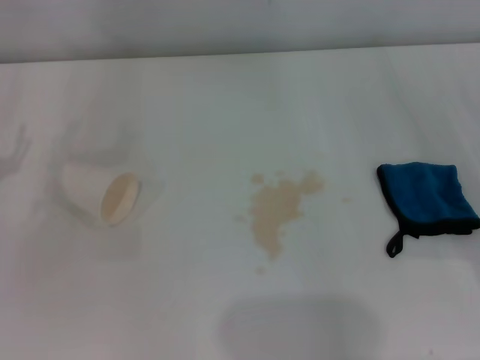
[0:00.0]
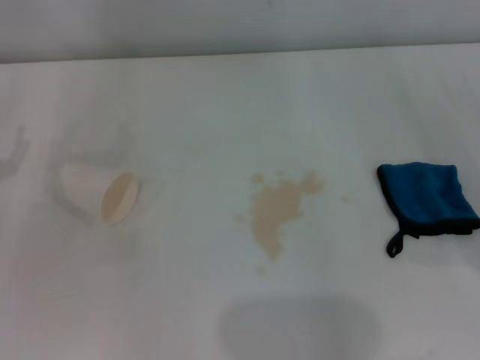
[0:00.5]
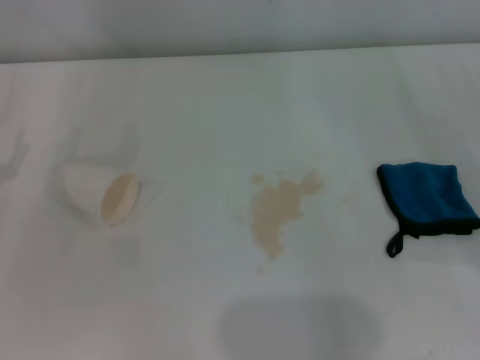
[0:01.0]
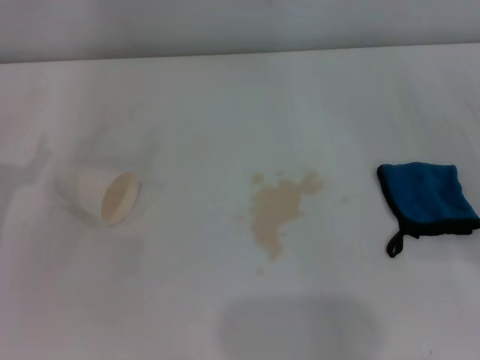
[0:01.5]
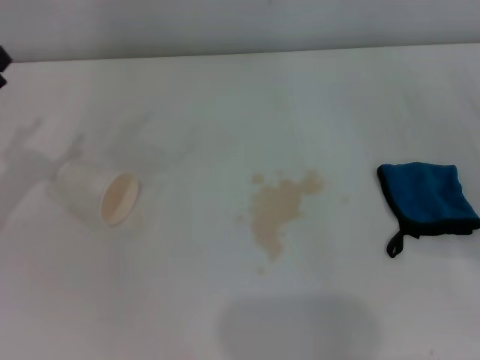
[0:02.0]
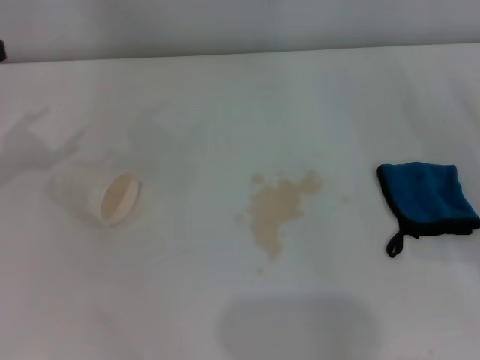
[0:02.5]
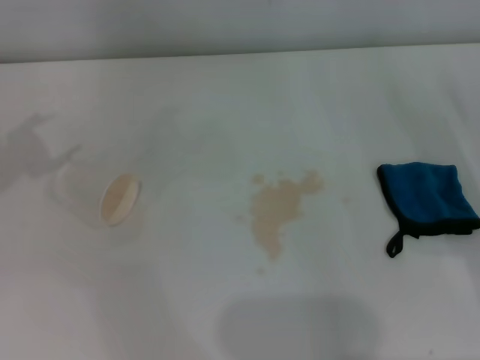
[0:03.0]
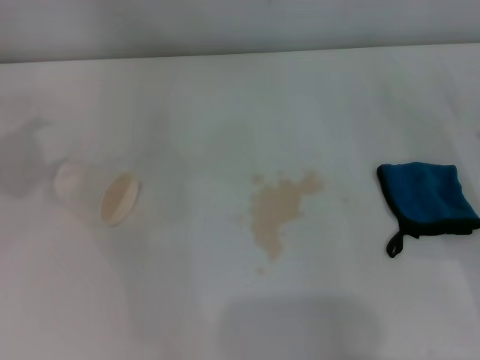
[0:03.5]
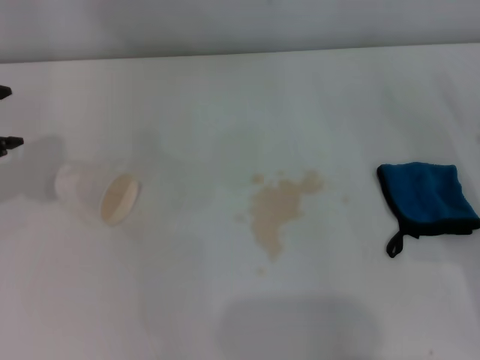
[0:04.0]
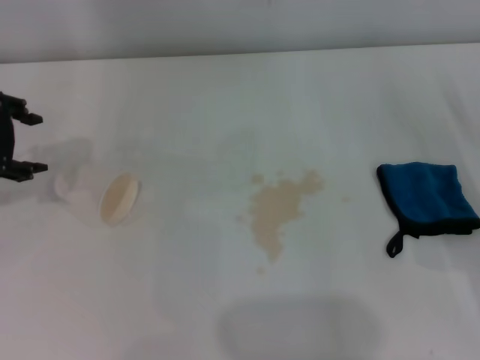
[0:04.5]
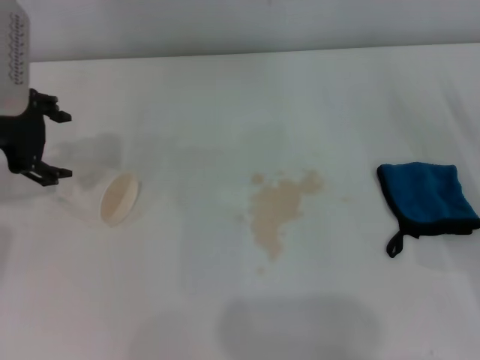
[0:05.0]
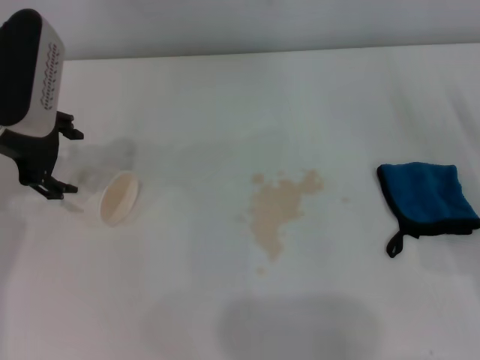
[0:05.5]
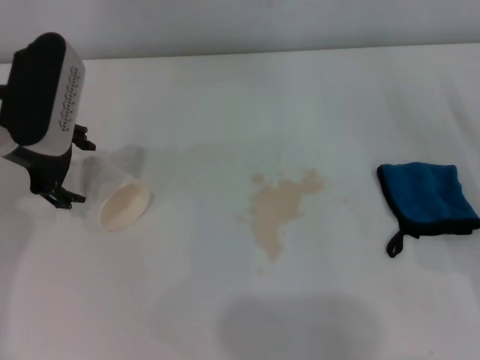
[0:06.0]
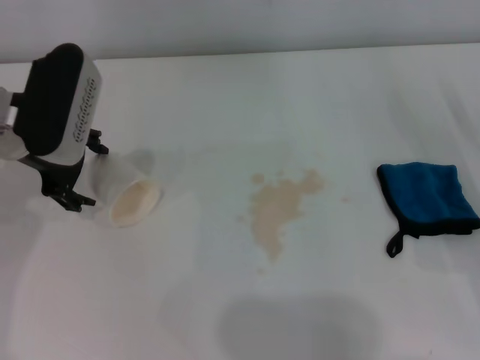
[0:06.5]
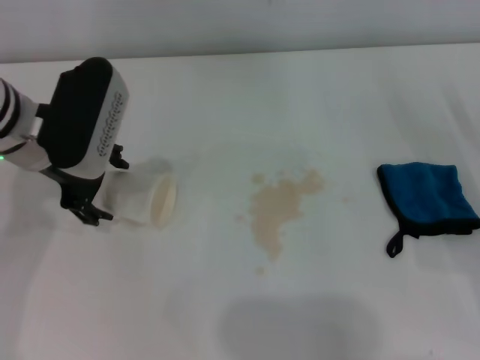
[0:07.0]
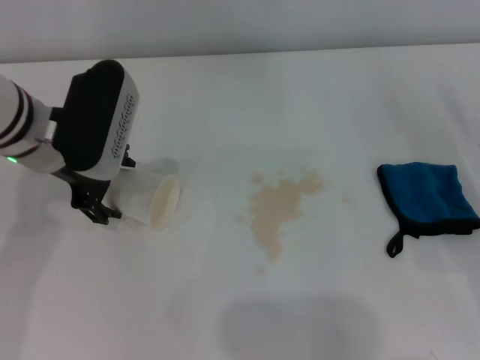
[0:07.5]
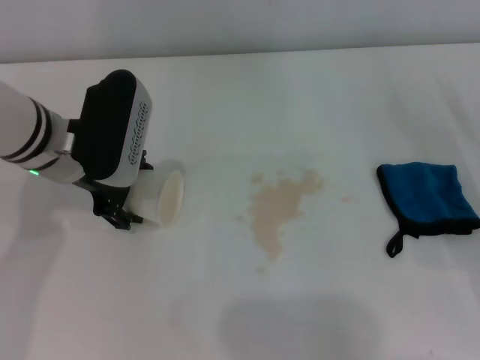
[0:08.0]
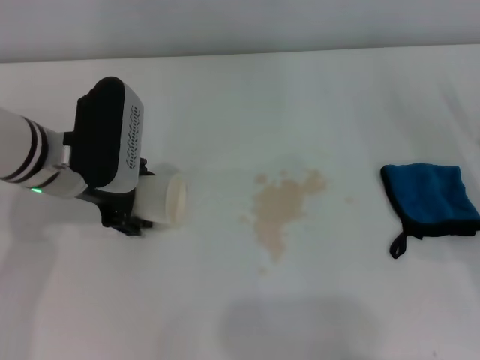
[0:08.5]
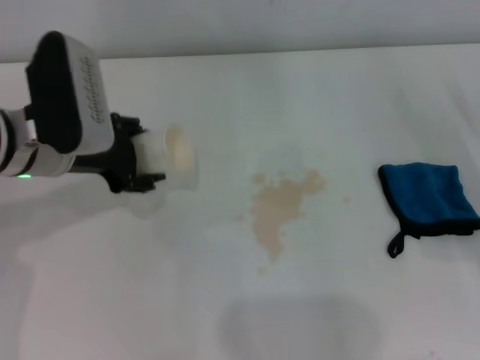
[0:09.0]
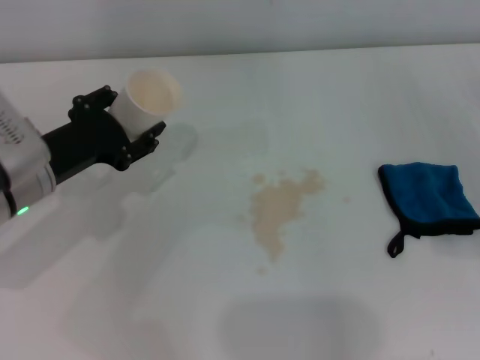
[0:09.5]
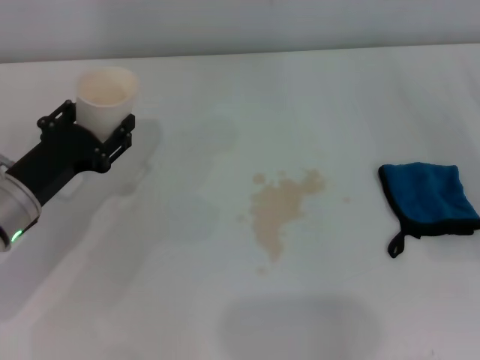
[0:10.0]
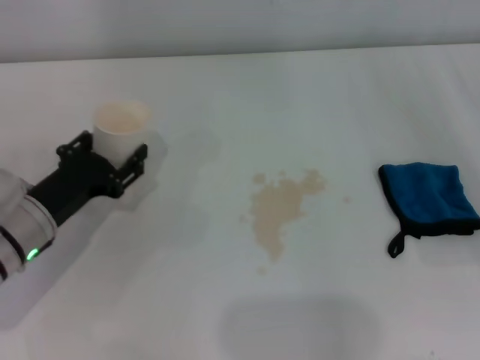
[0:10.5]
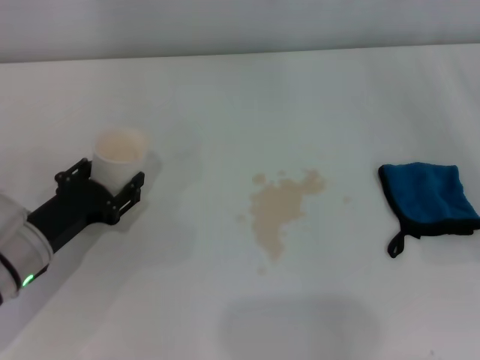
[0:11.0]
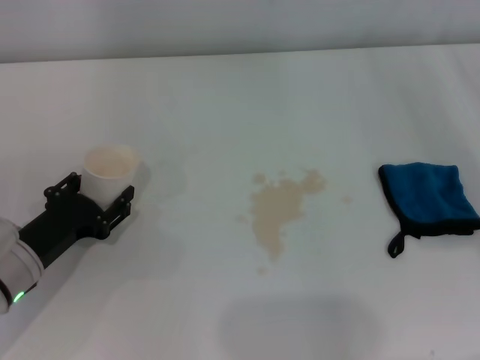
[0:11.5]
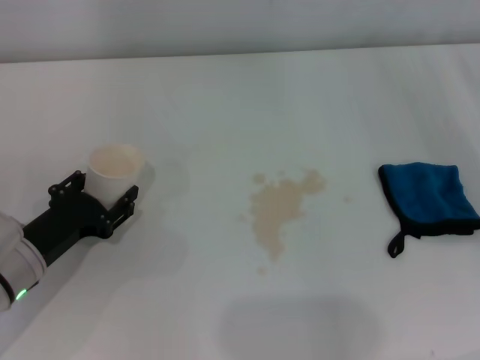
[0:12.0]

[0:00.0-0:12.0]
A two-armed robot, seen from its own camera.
Step, 0:00.0 to 0:08.0: Grasp the paper cup with the left gripper.
0:04.0 to 0:06.0: The left gripper heads to the right and downward, covering roughly 10 cm, and closes, then opens again.
0:06.0 to 0:08.0: The left gripper travels to the right by approximately 5 cm.
0:08.0 to 0:10.0: The left gripper moves downward, backward and to the left, roughly 10 cm, and closes.
0:10.0 to 0:12.0: The left gripper ends up roughly 5 cm from where it was.

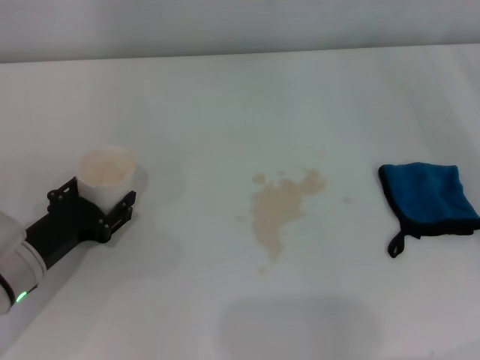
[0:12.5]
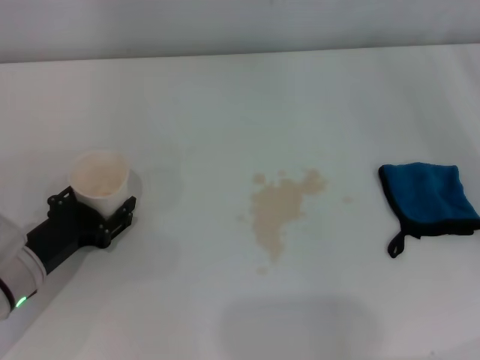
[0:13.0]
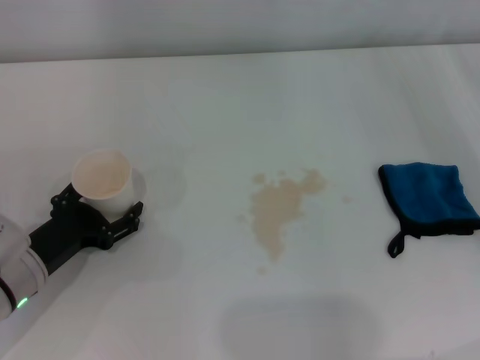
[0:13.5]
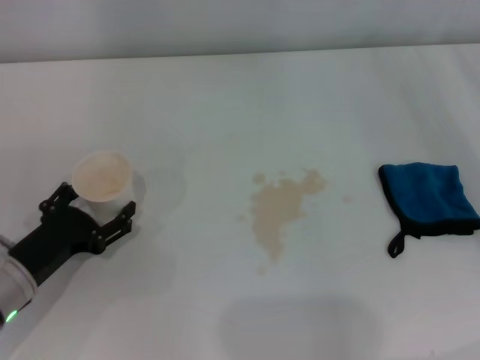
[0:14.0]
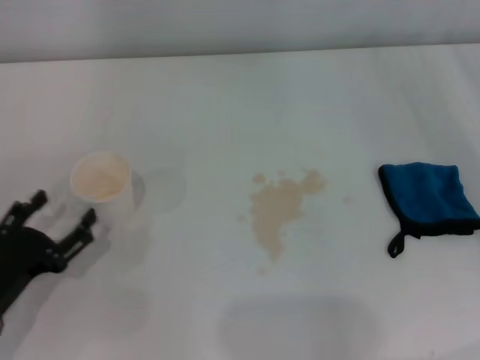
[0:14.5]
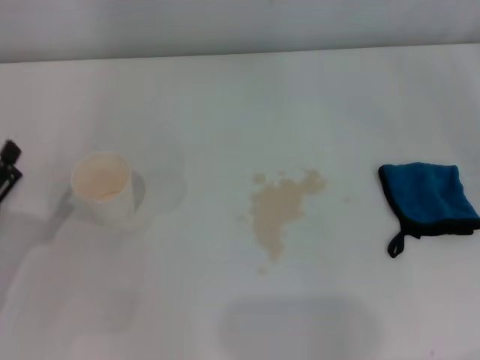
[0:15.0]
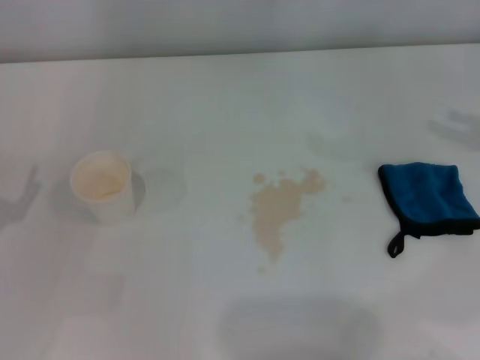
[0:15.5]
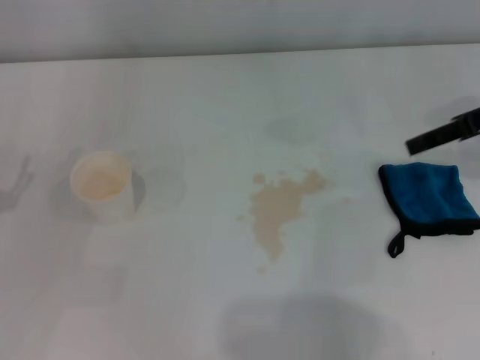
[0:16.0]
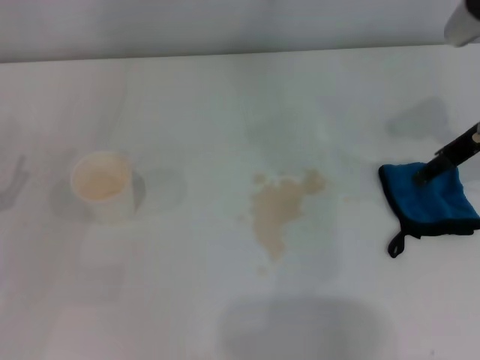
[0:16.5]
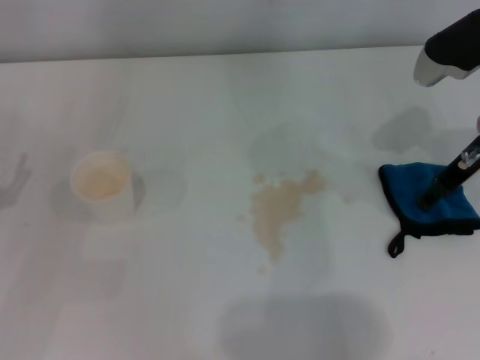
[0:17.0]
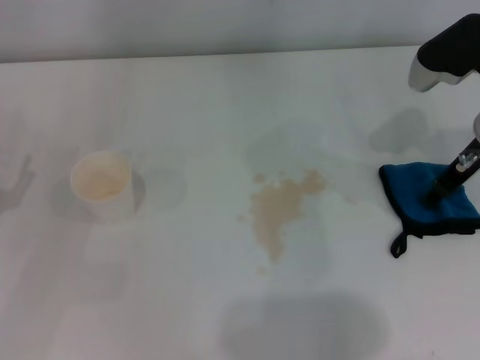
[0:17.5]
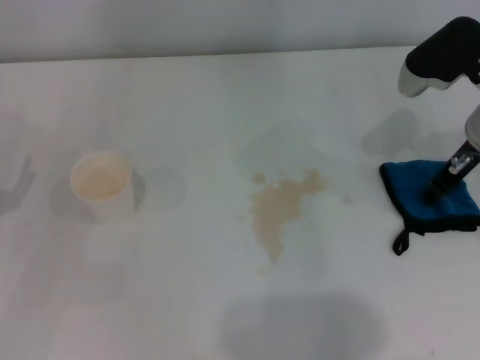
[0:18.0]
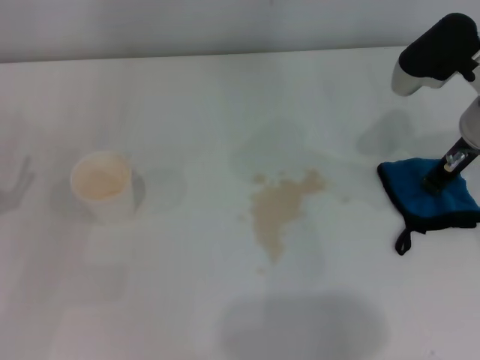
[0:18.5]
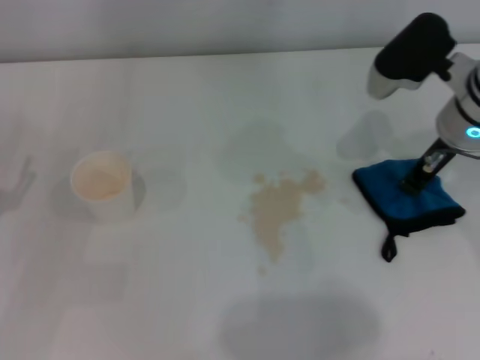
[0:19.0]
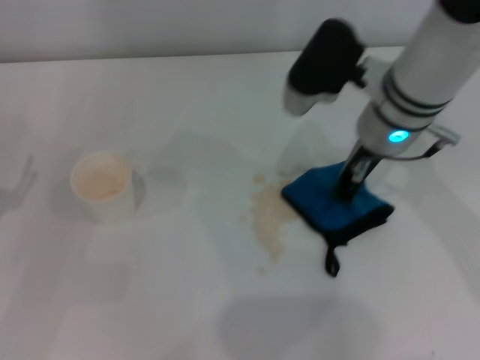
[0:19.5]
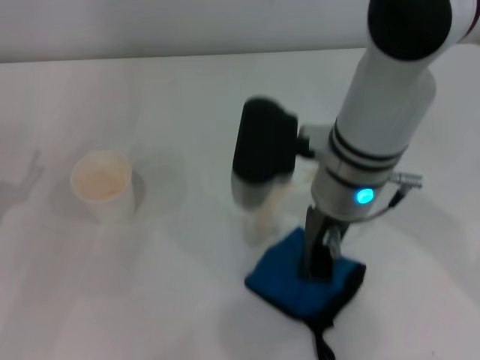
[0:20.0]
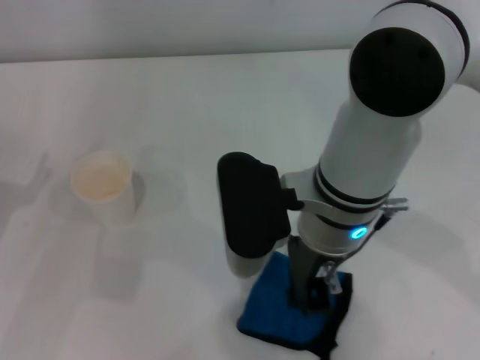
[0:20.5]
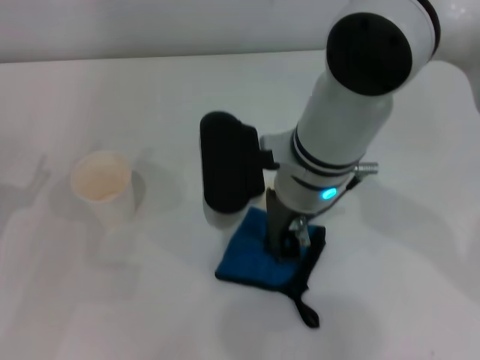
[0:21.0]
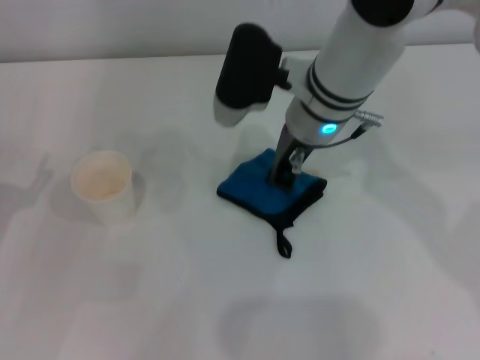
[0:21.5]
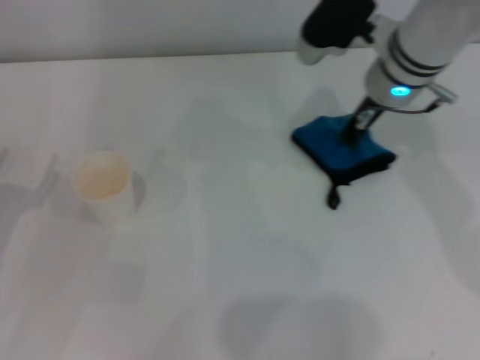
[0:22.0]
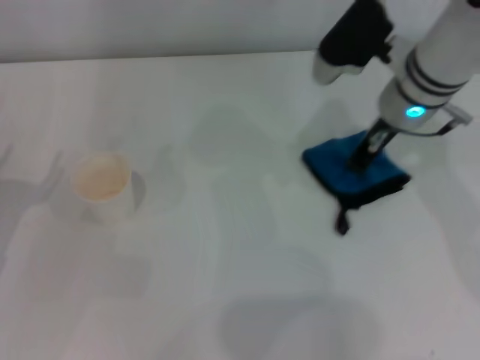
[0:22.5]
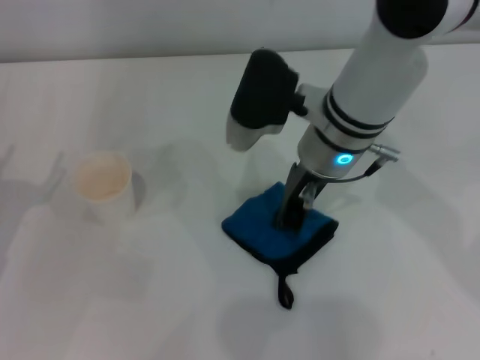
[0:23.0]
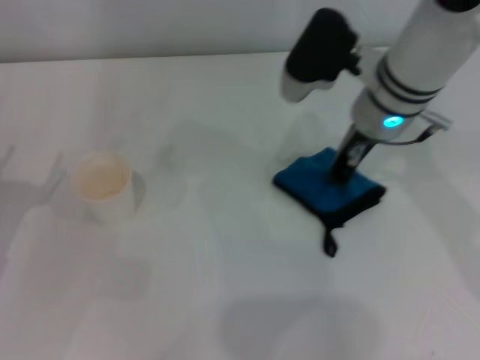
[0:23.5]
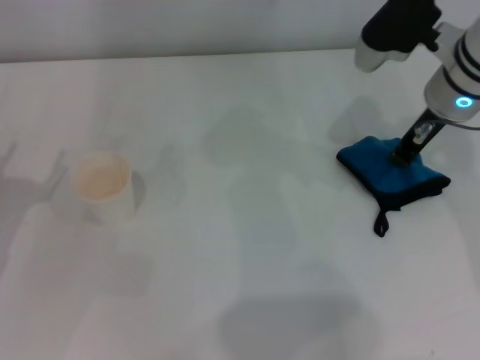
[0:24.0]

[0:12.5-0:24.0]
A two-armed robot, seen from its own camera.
Step, 0:14.0 to 0:17.5: Grasp the rag with the right gripper.
0:12.5 to 0:14.5: The left gripper moves backward, about 5 cm, and opens up.
0:14.5 to 0:16.5: The right gripper goes some 20 cm to the left, forward and upward; the left gripper shifts roughly 10 cm to the left and upward.
0:16.5 to 0:18.5: The right gripper closes up.
0:18.5 to 0:20.0: The right gripper travels to the left by approximately 15 cm.
0:20.0 to 0:22.0: The right gripper travels forward and to the right by approximately 15 cm.
0:22.0 to 0:24.0: The right gripper reaches approximately 10 cm to the left, then returns.

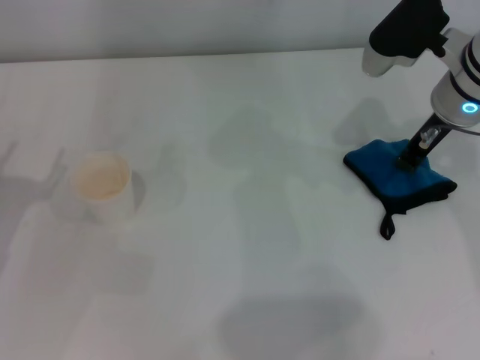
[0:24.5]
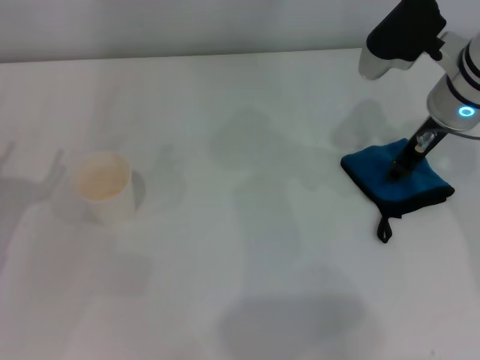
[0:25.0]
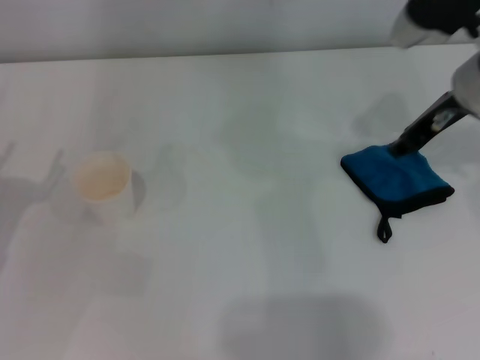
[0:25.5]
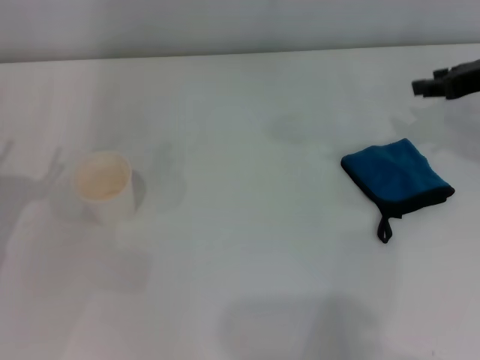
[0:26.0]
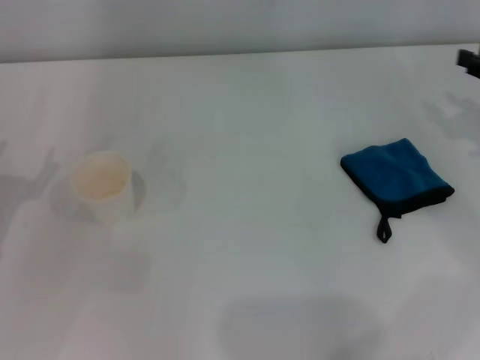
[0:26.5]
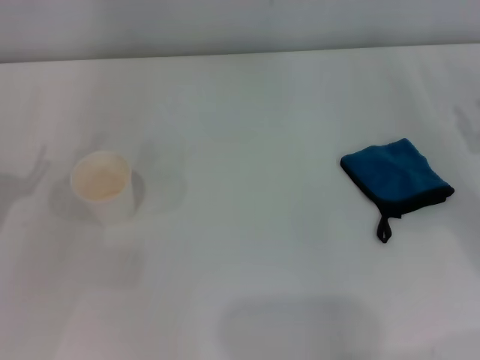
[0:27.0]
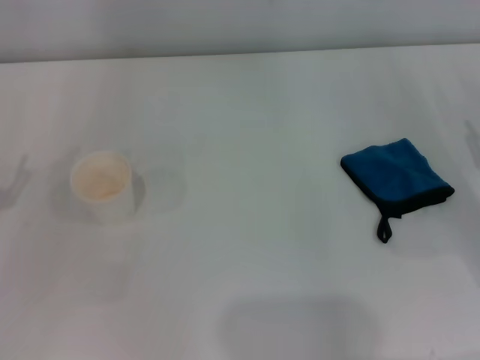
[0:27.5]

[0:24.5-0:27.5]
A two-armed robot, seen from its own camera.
0:24.5 to 0:26.0: The right gripper travels to the right by approximately 10 cm, and opens up.
0:26.0 to 0:27.5: The right gripper is displaced downward and backward by some 15 cm.
